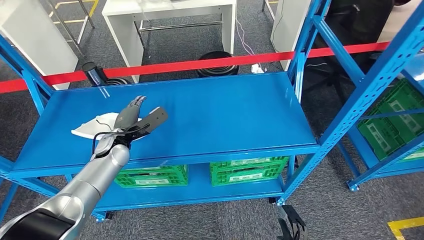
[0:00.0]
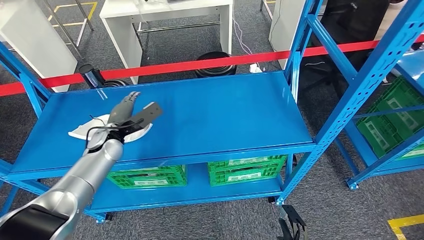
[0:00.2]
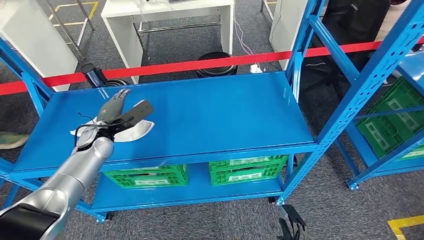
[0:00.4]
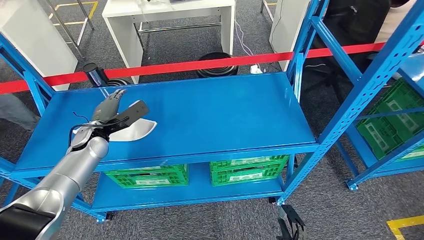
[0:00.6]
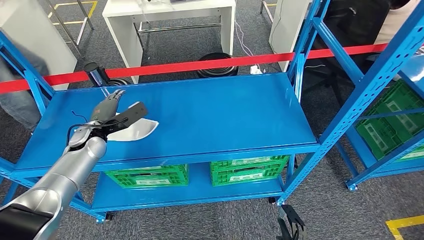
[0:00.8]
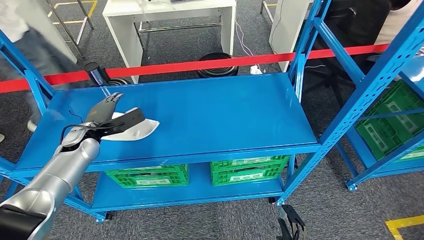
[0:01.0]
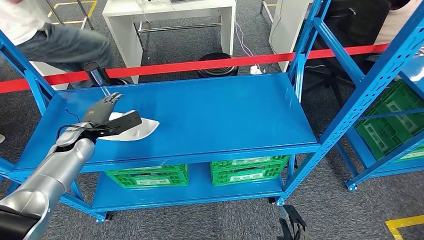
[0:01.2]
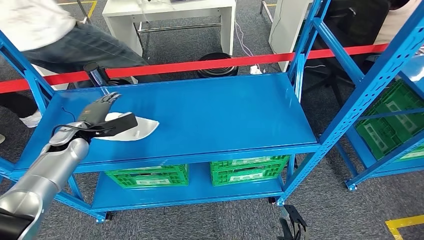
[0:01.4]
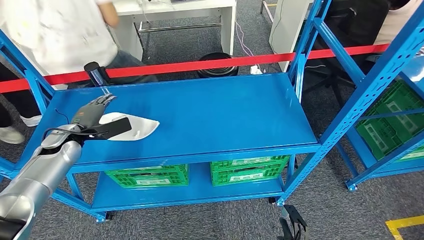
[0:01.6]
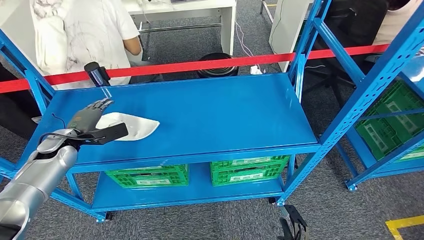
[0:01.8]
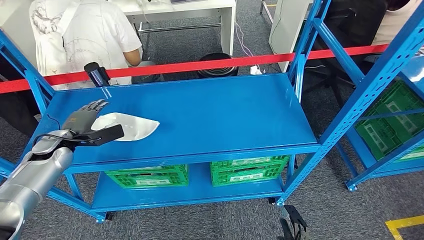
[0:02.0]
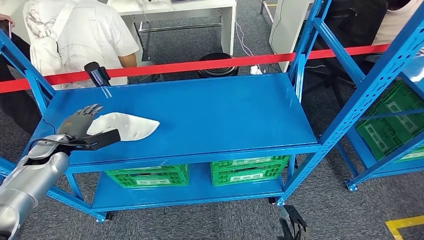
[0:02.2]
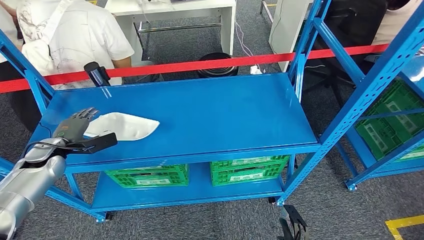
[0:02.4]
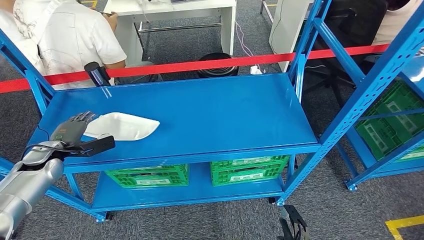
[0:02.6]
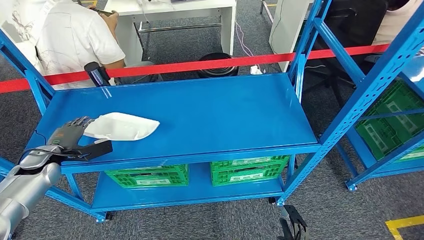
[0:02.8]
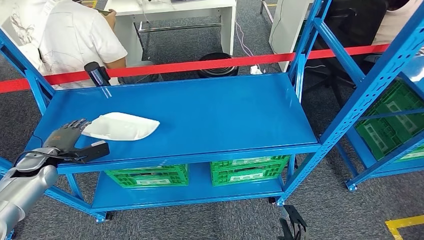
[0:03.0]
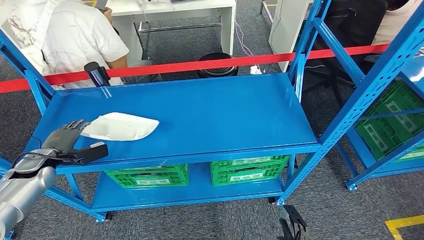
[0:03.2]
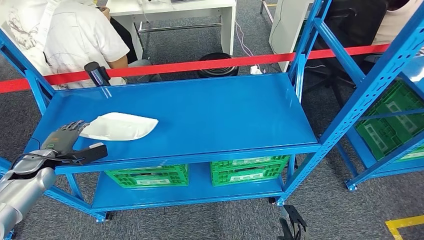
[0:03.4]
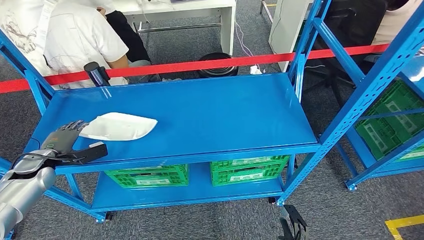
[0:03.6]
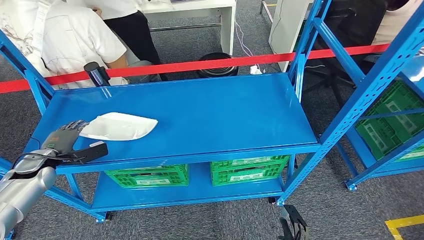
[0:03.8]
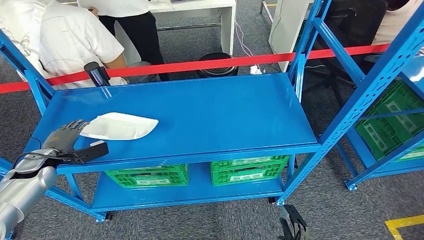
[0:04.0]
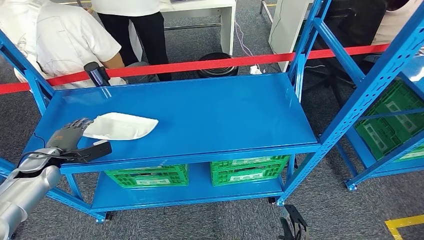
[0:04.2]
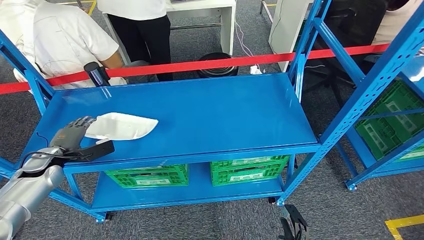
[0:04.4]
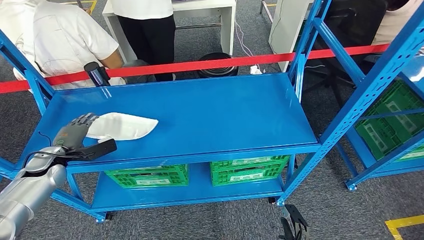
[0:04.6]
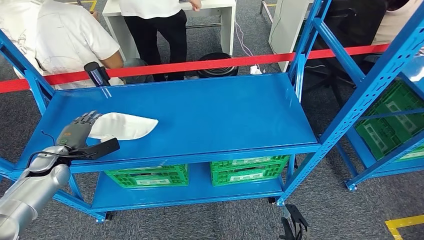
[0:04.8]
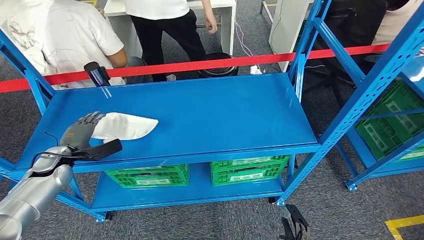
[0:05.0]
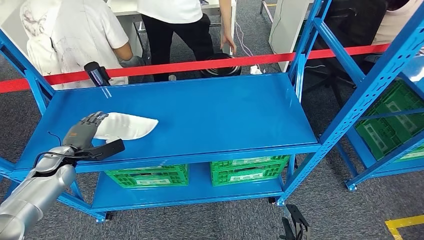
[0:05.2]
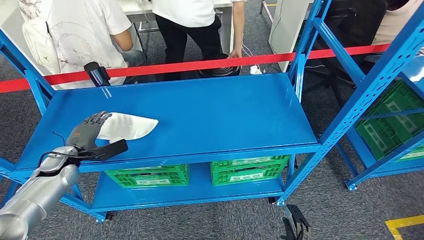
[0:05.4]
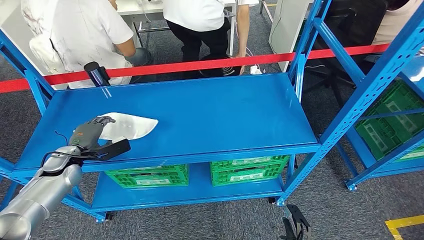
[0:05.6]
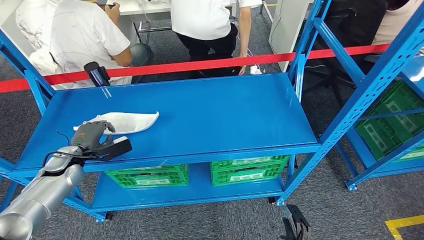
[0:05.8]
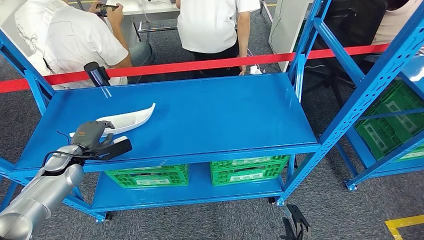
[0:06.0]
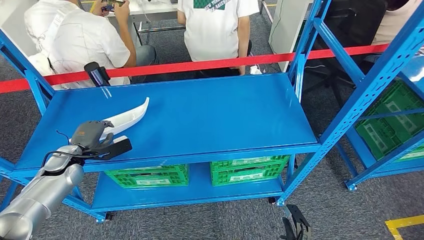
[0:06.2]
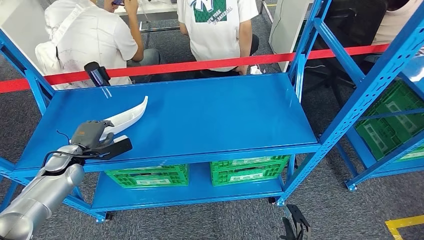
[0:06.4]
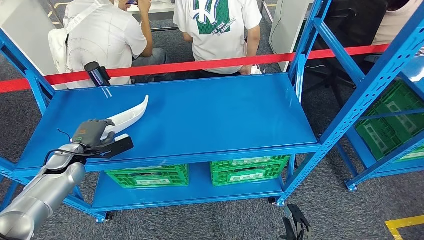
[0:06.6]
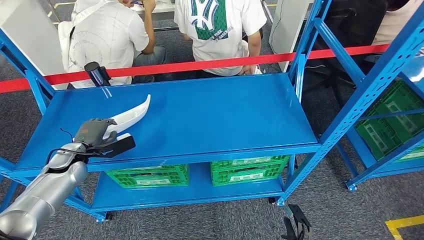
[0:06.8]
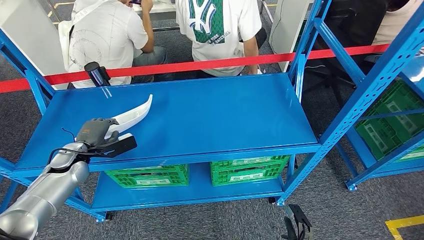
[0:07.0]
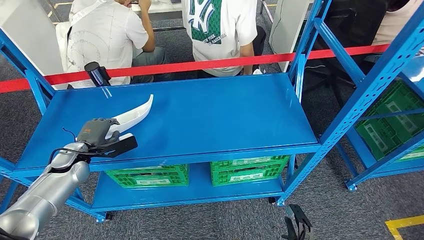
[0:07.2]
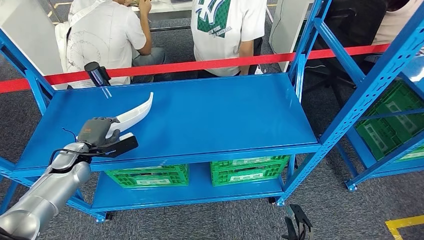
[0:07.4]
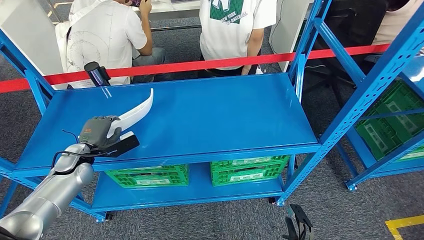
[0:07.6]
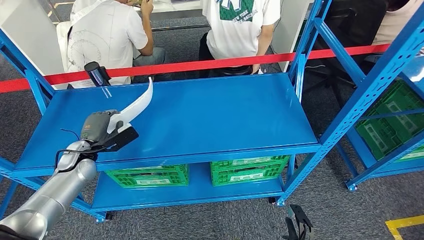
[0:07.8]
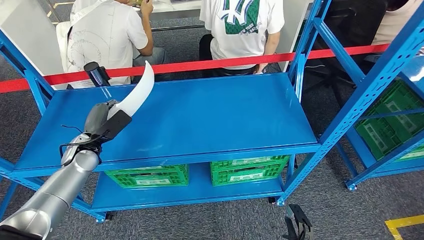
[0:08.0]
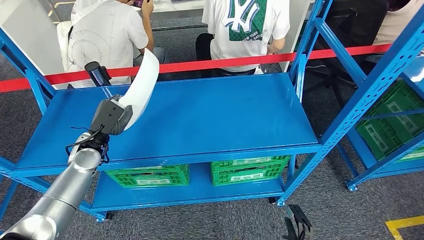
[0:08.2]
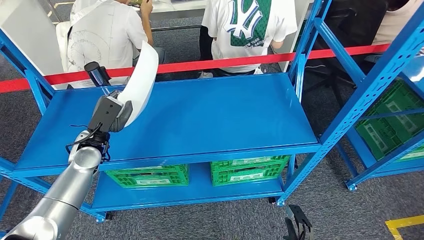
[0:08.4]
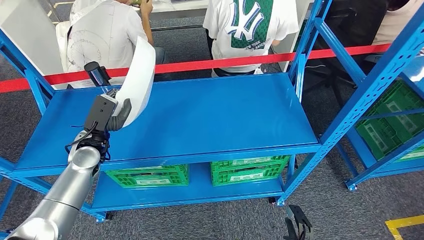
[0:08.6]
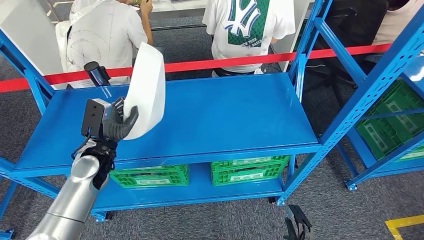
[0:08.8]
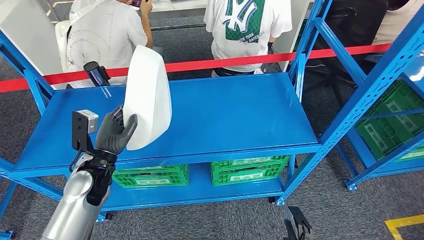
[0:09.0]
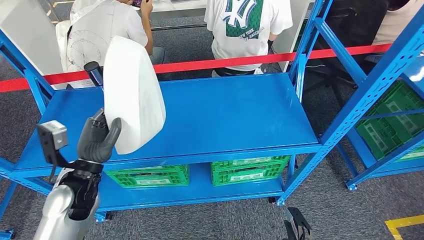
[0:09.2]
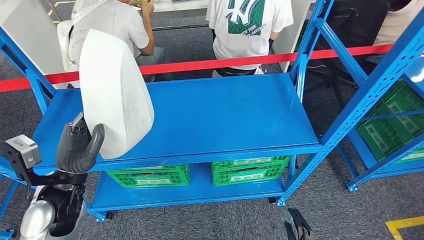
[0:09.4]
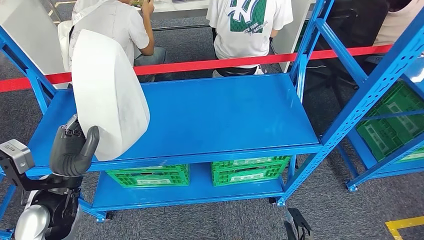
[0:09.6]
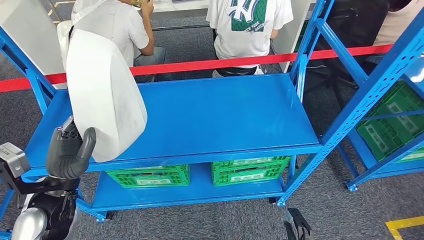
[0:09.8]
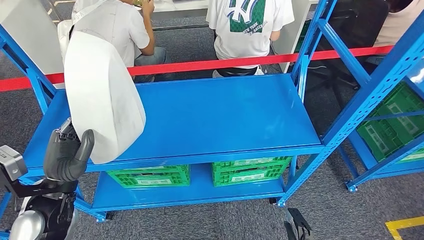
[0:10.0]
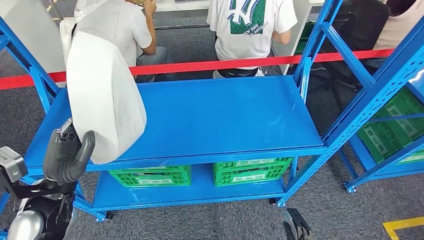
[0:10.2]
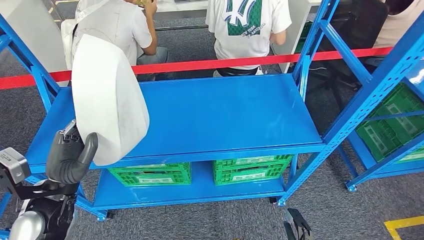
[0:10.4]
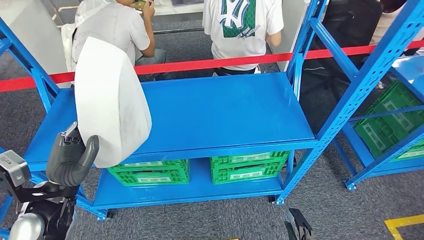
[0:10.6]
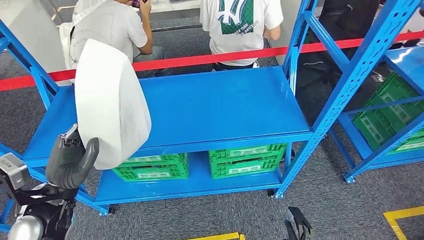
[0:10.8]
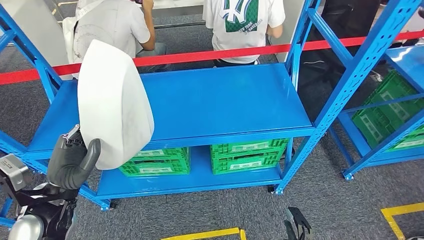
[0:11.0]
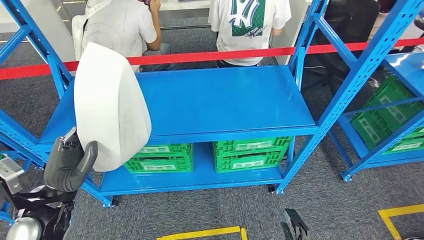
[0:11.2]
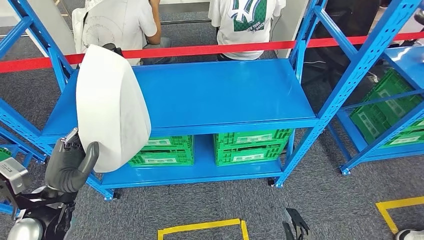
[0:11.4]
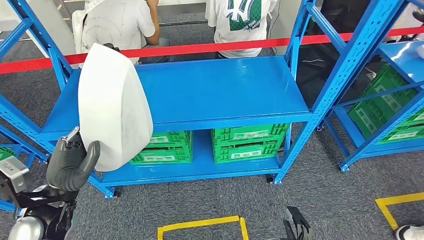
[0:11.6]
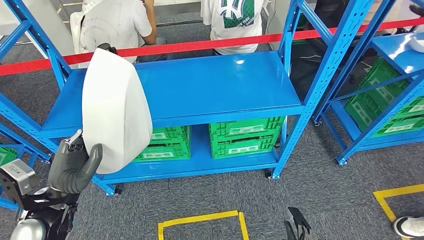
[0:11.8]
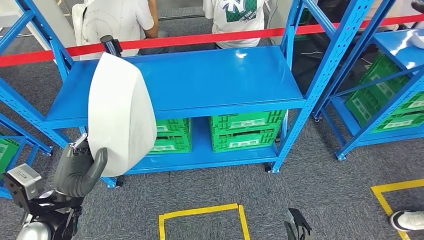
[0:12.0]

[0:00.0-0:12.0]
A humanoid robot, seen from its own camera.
Step, 0:00.0 to 0:11.0: Pick up the large material from the shelf.
0:01.6 to 0:03.0: The left hand is displaced to the left and backward by roughly 10 cm.
0:03.0 to 0:04.4: The hands make only small movements.
0:04.4 to 0:06.0: The left hand heads to the right, covering roughly 5 cm.
0:06.0 to 0:07.6: There are only small adjustments of the hands.
0:07.6 to 0:09.0: The left hand shifts about 15 cm to the right.

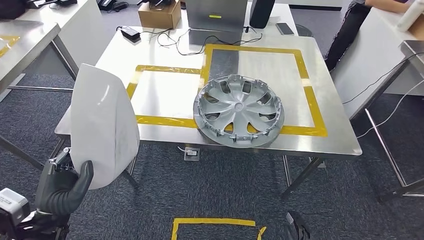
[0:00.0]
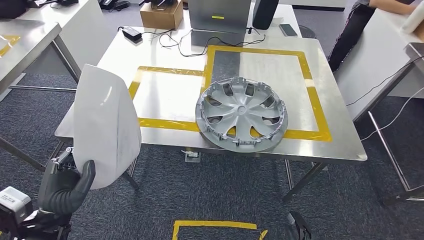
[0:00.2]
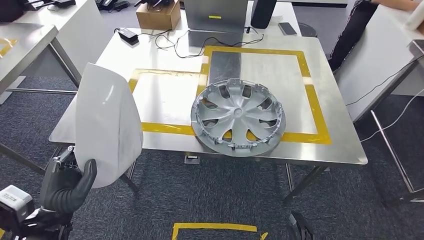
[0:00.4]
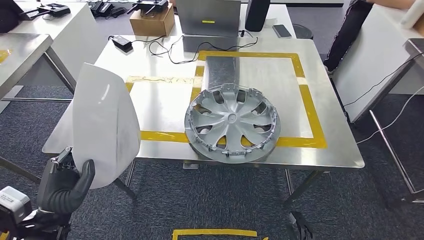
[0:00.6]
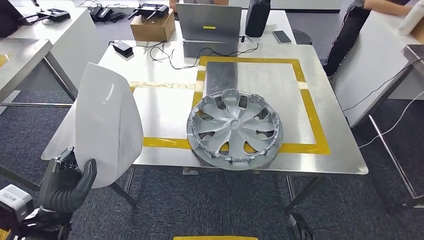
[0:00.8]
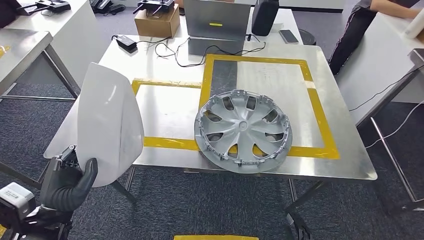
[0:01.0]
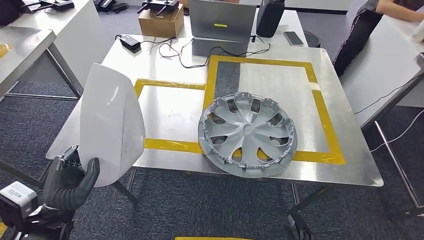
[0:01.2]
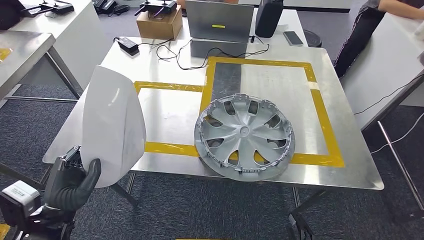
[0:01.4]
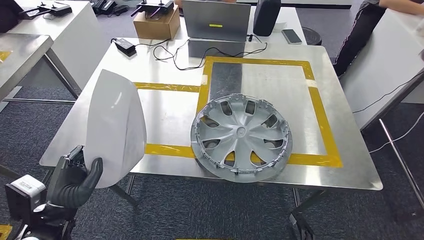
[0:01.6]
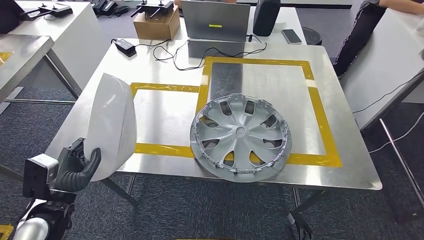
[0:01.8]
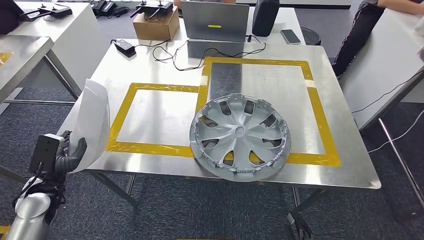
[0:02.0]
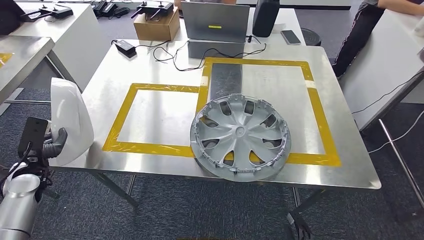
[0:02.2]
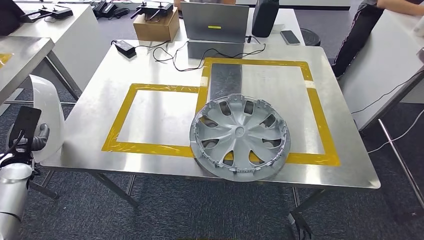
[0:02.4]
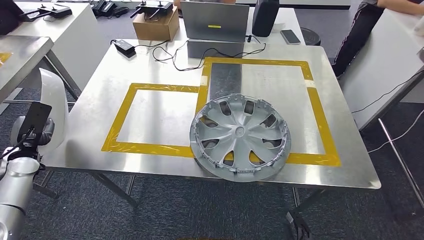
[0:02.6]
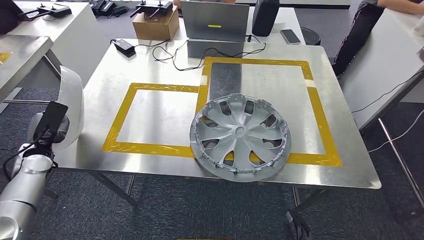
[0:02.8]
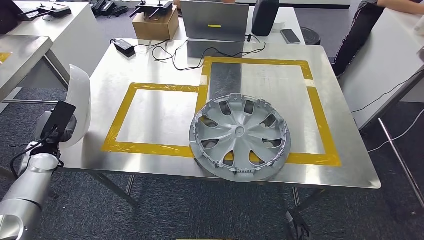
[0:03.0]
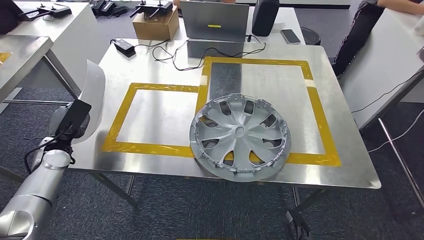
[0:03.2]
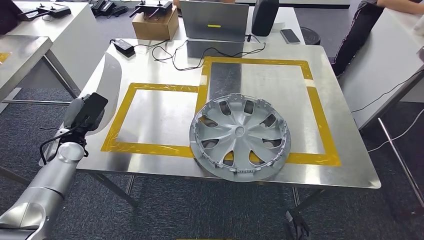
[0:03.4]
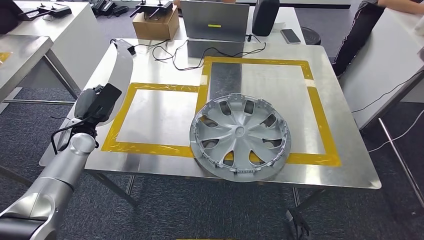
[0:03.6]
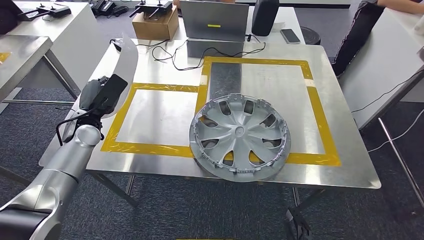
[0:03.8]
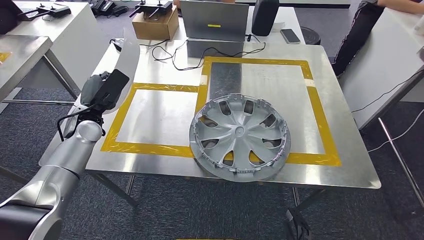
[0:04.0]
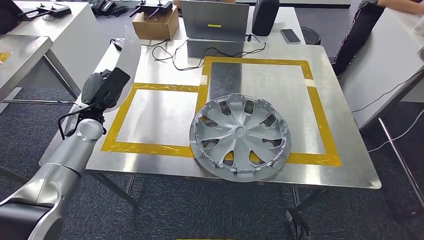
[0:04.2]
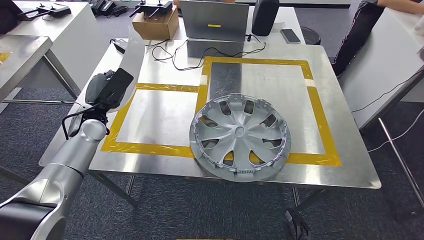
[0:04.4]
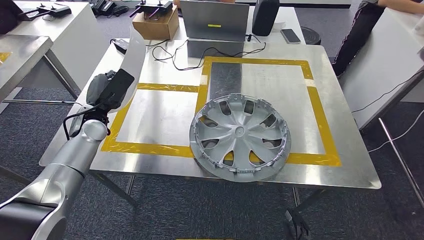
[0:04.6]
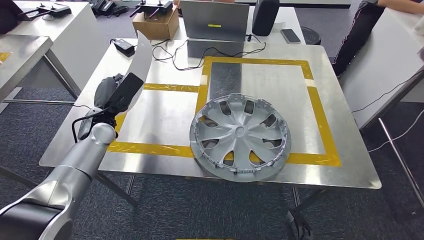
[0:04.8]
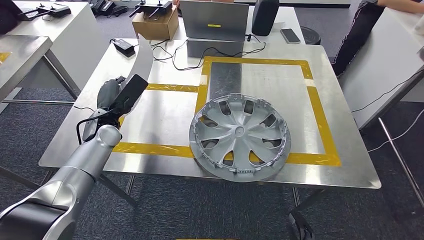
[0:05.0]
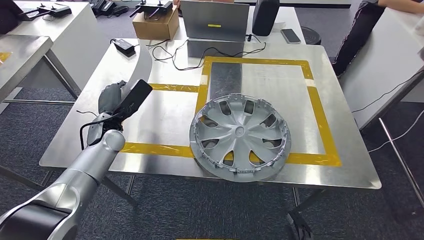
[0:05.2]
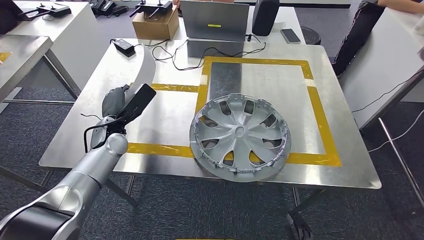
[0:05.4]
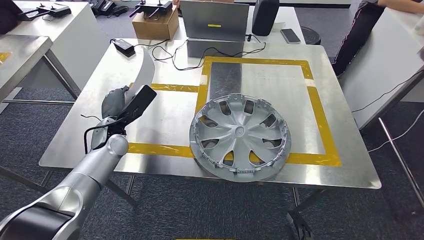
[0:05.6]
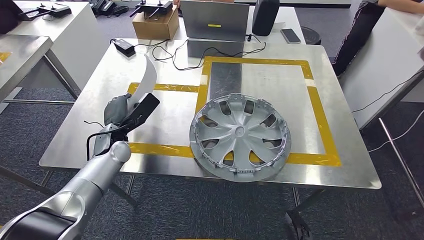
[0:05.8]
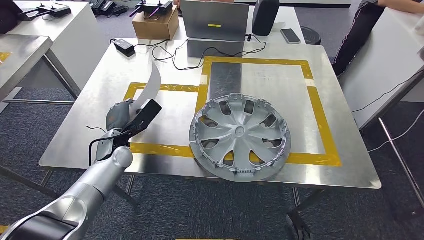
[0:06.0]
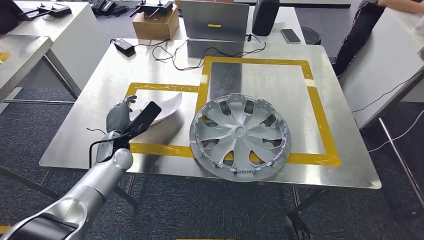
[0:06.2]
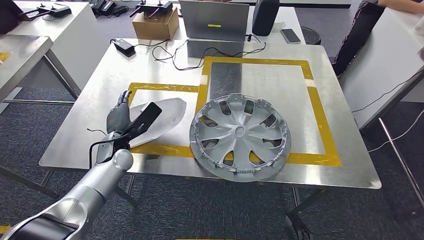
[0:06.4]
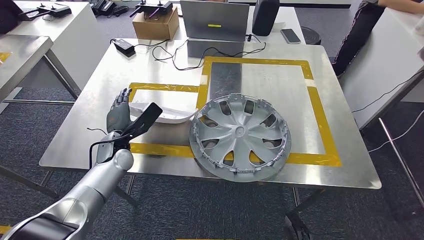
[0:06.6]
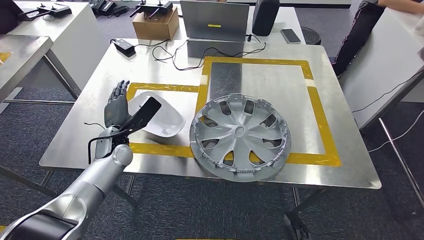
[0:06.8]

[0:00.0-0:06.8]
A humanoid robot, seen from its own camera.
0:02.8 to 0:04.0: The left hand is displaced to the right, forward and upward by about 15 cm.
0:04.0 to 0:05.4: The left hand goes some 5 cm to the right.
0:05.4 to 0:06.8: The hands stay close to where they were, moving slightly.
